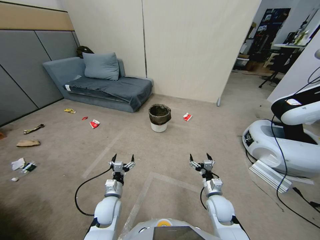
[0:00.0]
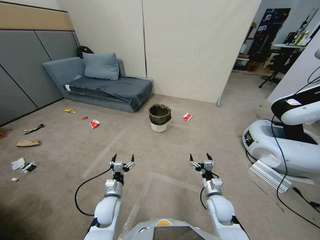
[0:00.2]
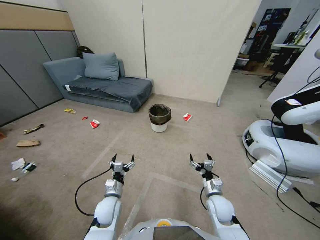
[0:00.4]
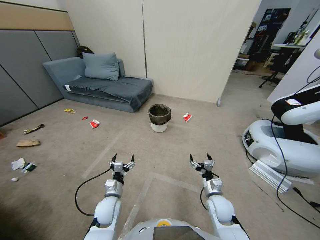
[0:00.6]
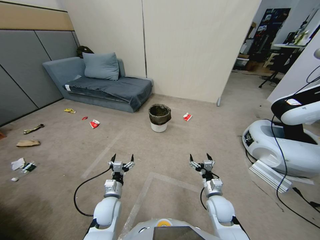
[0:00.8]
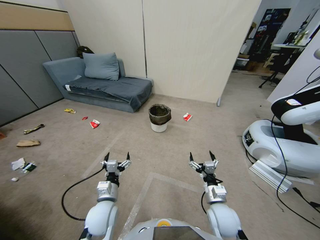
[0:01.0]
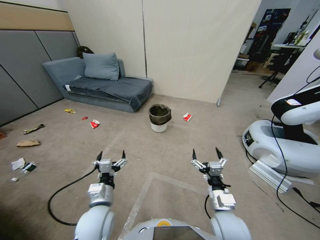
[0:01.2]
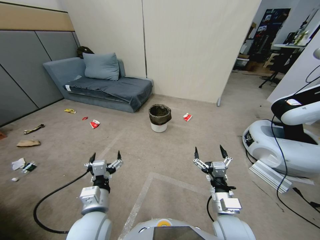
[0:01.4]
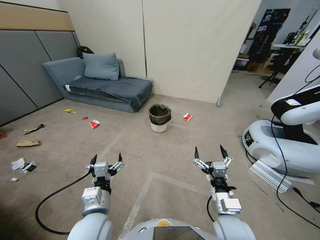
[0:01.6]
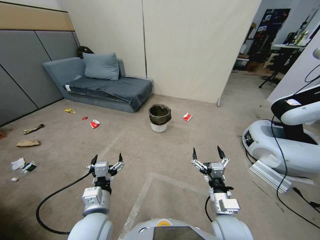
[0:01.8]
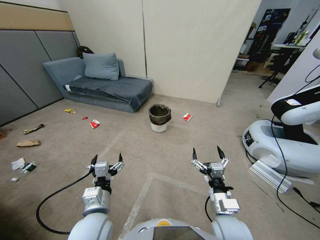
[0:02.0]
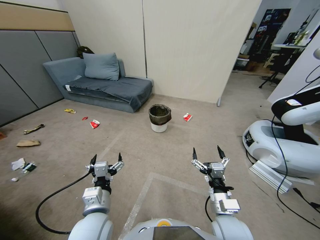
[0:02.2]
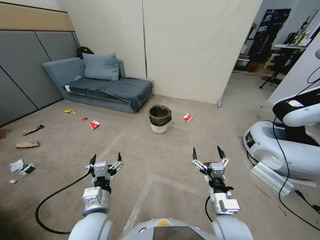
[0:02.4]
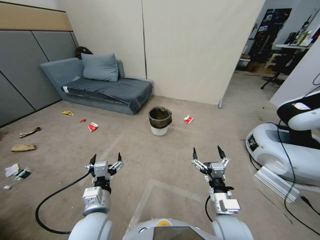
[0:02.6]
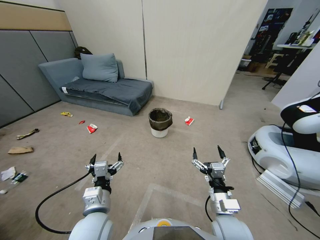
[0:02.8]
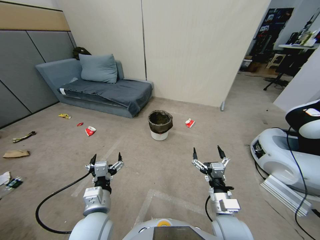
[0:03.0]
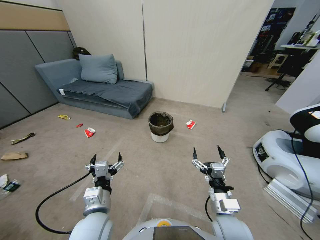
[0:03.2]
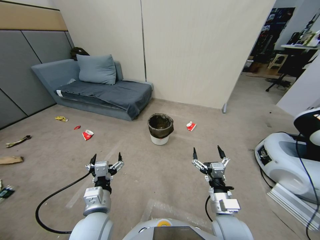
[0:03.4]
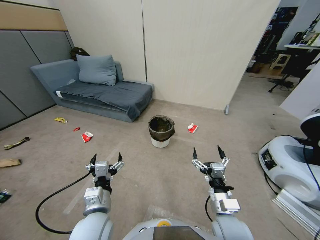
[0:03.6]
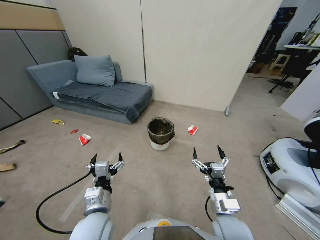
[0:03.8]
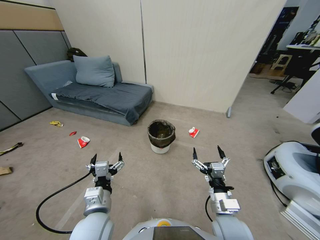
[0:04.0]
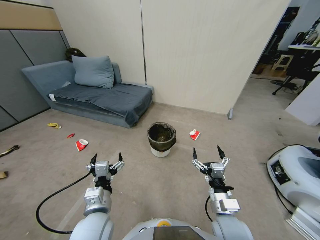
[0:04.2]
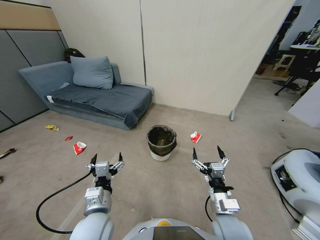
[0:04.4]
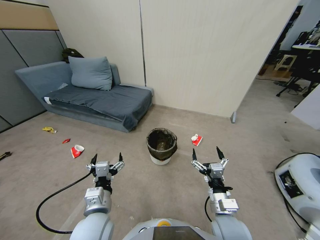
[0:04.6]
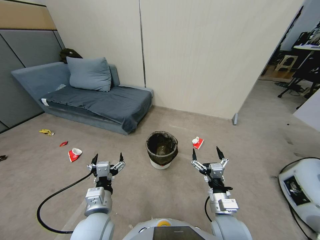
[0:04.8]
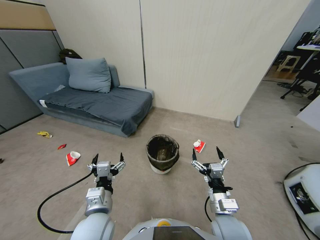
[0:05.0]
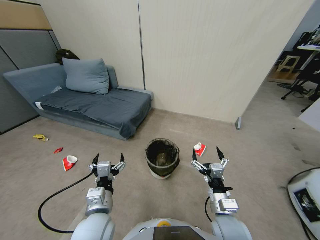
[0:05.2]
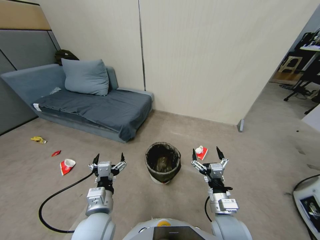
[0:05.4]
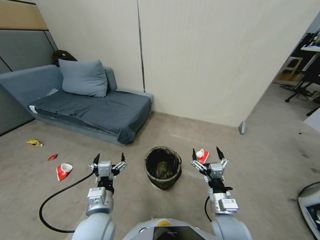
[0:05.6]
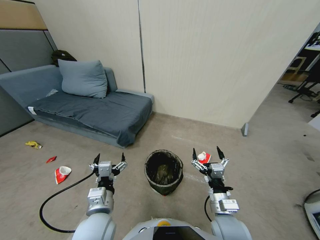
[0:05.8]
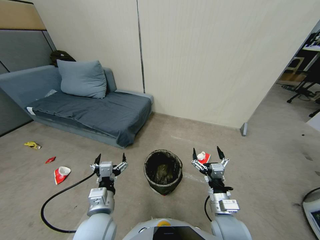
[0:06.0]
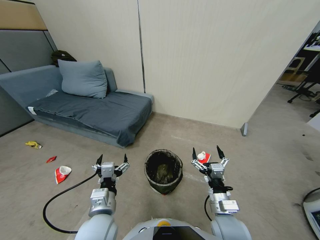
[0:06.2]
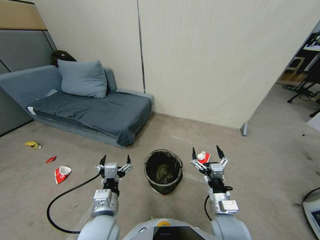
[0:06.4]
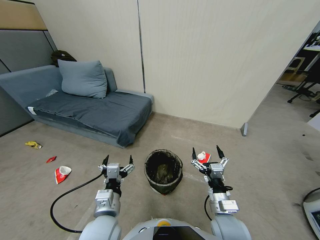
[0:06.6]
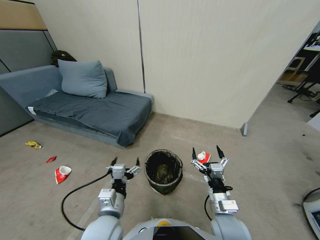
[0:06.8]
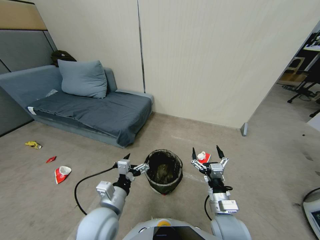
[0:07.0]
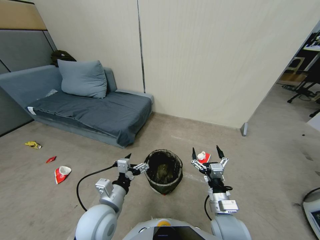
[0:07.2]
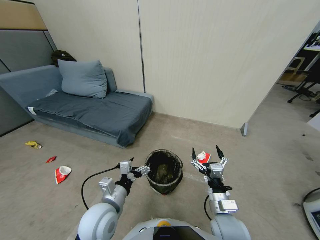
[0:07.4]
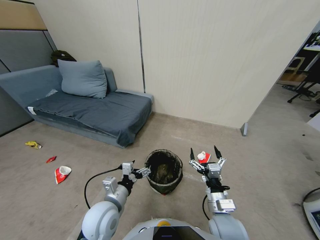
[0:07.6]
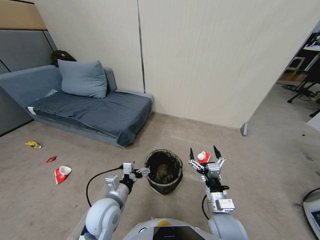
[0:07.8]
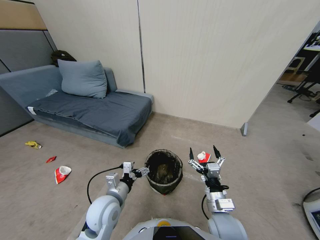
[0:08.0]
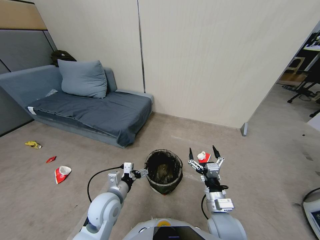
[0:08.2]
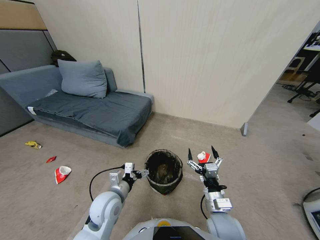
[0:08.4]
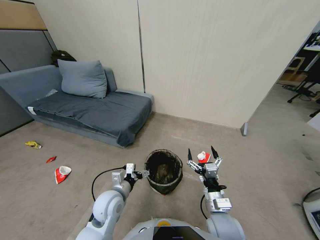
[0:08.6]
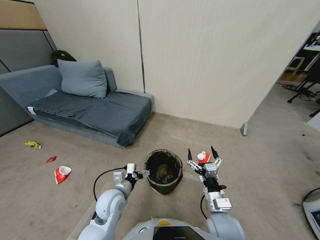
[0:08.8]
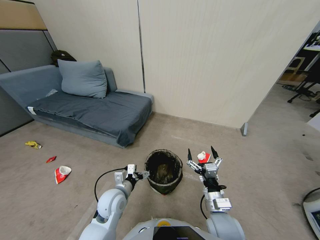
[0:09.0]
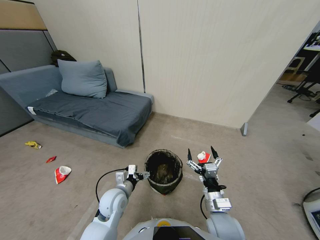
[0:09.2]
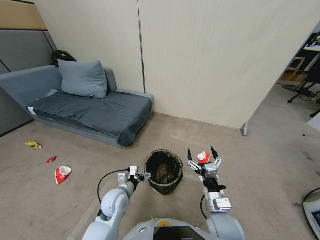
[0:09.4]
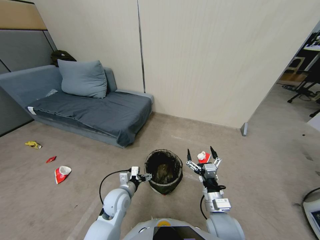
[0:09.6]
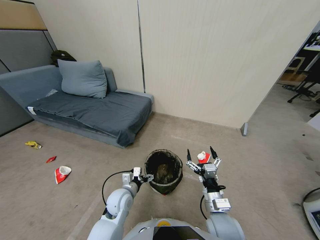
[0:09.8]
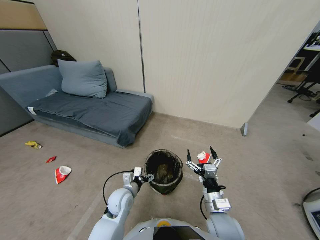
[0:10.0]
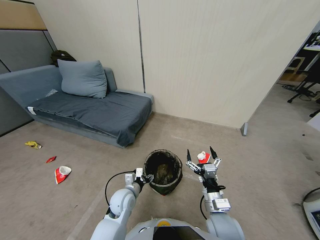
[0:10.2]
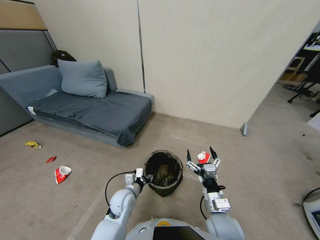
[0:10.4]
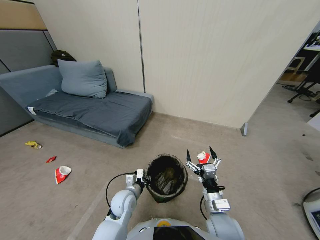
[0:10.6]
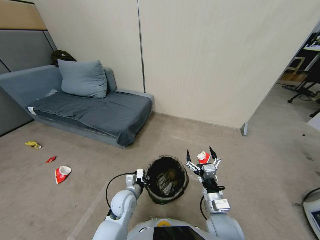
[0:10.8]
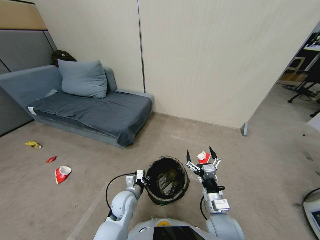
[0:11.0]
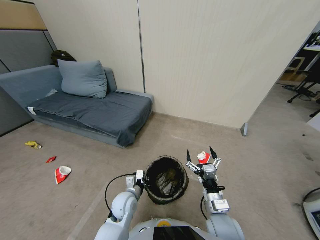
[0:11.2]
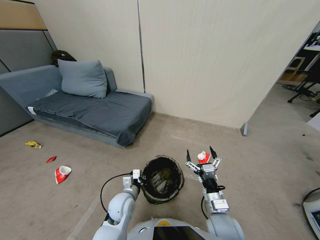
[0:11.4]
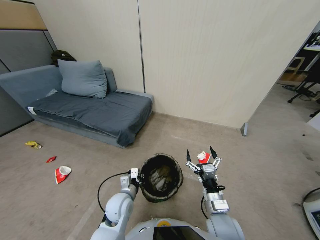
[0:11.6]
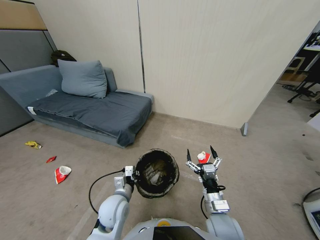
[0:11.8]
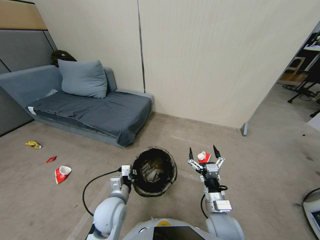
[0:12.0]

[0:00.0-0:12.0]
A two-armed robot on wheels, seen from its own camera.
Task of the whole recording: Pick up the trash bin, then pick up the garbage from the floor and place it into the trash bin.
0:06.0 to 0:07.6: The left gripper moves approximately 5 cm.
0:07.6 to 0:09.0: The left gripper is displaced downward and forward by some 10 cm.
0:09.0 to 0:10.4: The left gripper closes its fingers.
0:10.4 to 0:12.0: The left gripper shifts approximately 10 cm upward and backward.

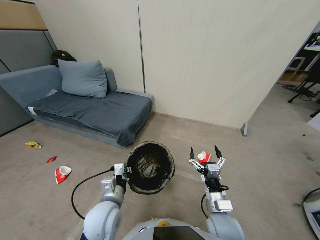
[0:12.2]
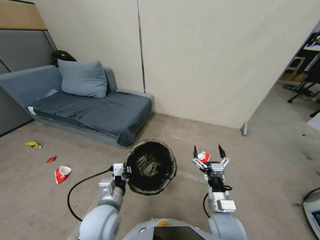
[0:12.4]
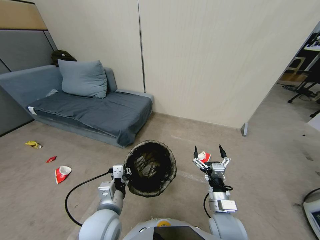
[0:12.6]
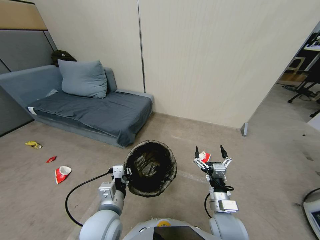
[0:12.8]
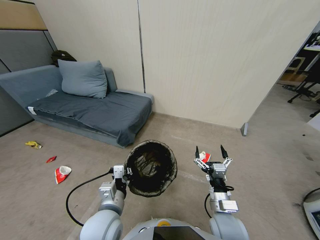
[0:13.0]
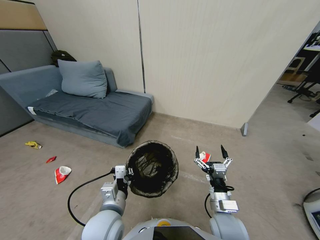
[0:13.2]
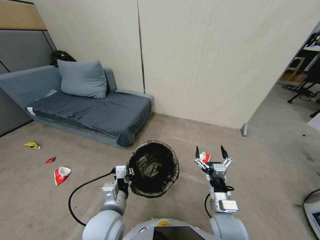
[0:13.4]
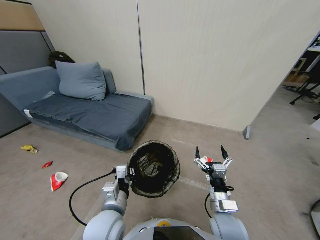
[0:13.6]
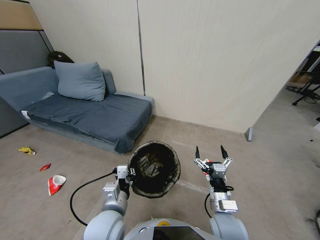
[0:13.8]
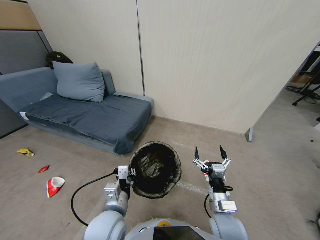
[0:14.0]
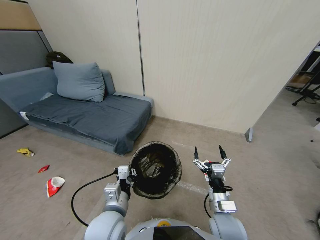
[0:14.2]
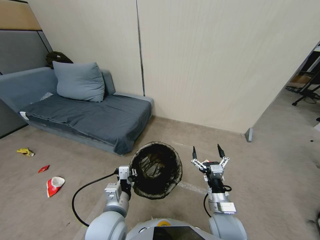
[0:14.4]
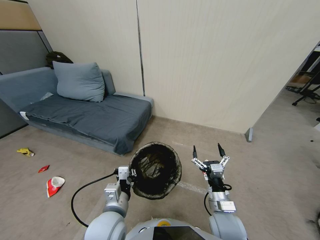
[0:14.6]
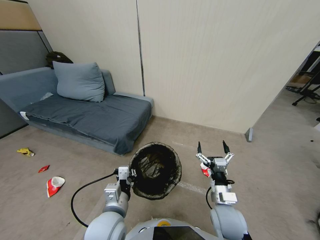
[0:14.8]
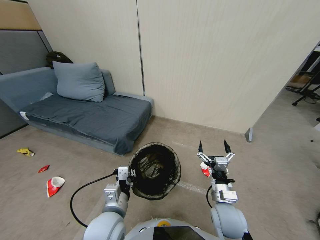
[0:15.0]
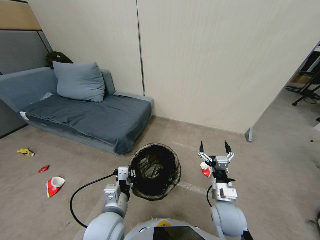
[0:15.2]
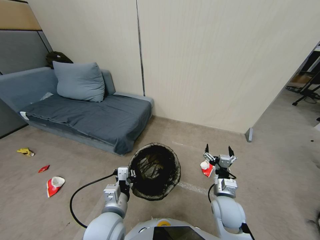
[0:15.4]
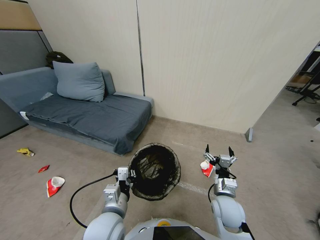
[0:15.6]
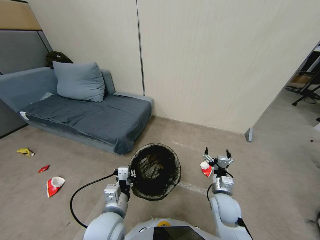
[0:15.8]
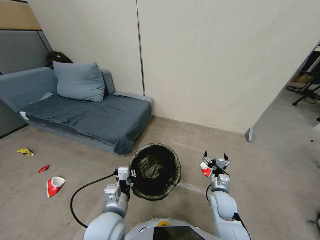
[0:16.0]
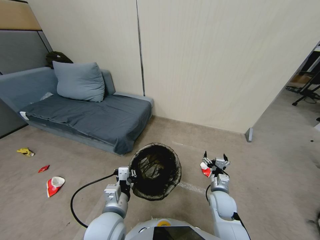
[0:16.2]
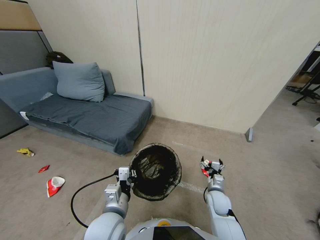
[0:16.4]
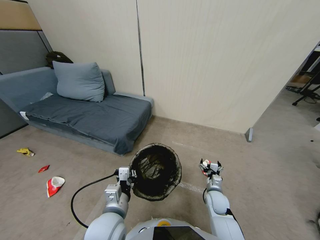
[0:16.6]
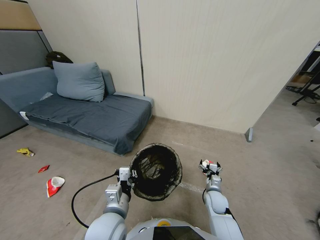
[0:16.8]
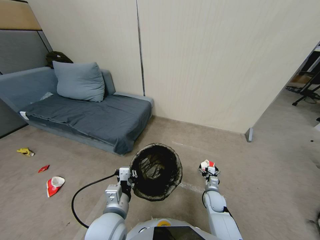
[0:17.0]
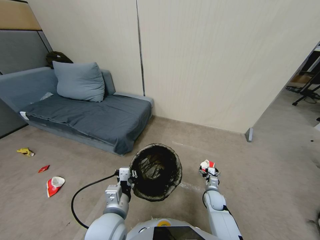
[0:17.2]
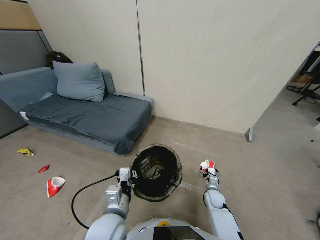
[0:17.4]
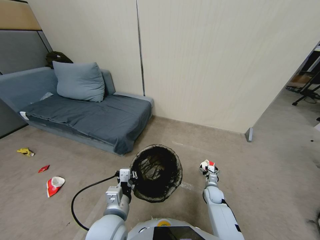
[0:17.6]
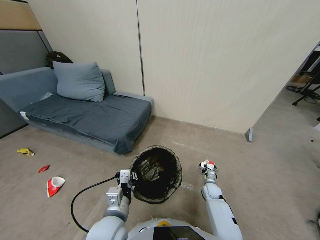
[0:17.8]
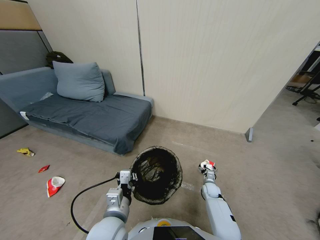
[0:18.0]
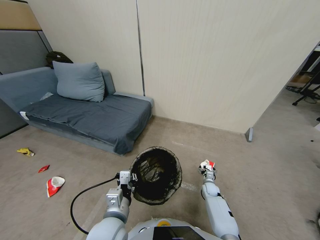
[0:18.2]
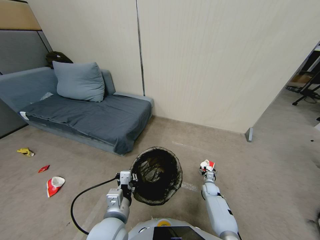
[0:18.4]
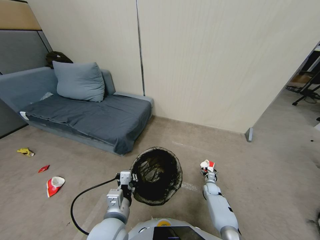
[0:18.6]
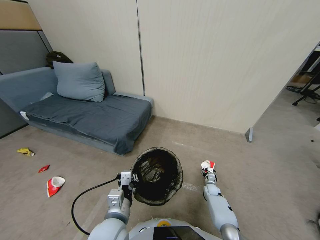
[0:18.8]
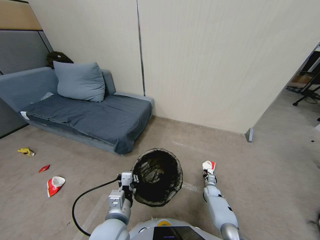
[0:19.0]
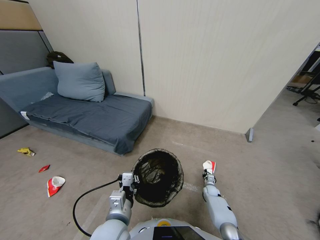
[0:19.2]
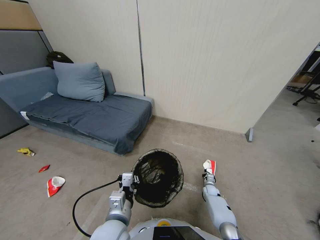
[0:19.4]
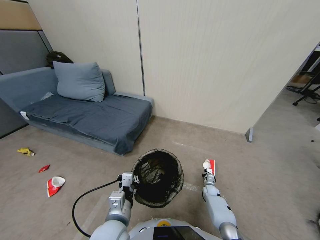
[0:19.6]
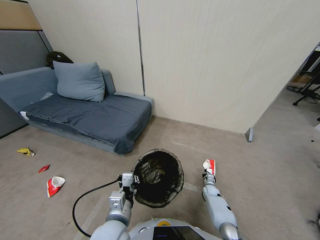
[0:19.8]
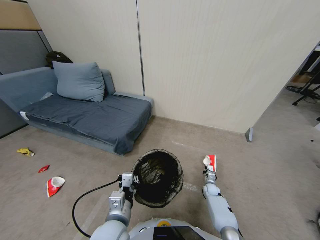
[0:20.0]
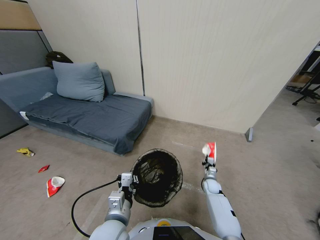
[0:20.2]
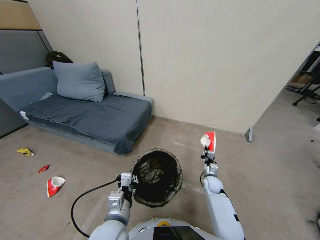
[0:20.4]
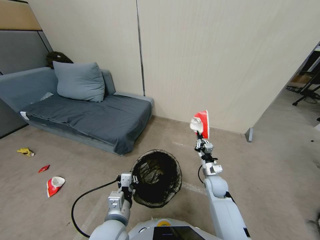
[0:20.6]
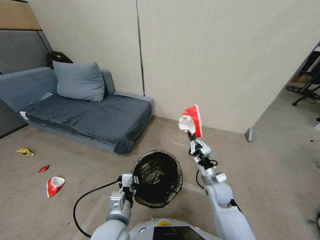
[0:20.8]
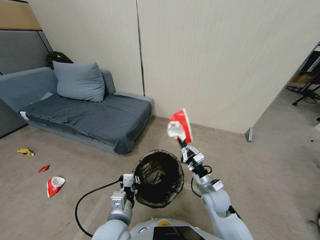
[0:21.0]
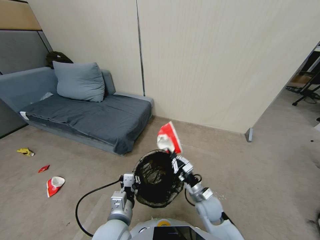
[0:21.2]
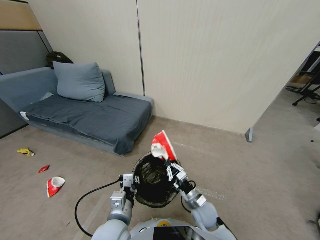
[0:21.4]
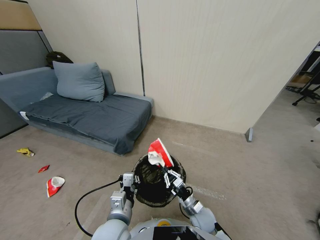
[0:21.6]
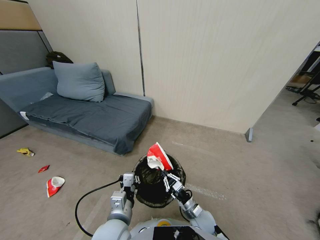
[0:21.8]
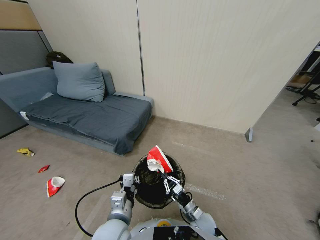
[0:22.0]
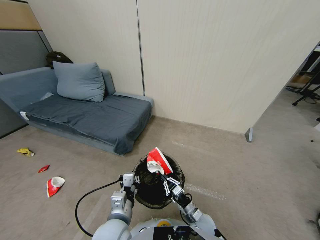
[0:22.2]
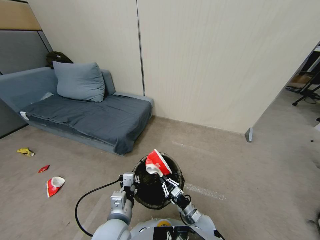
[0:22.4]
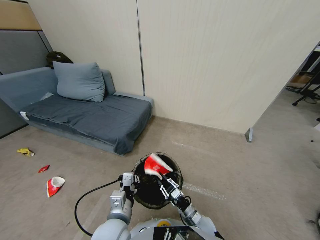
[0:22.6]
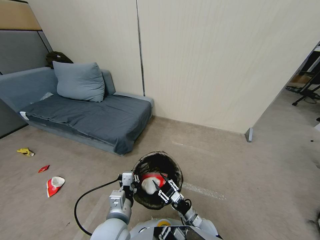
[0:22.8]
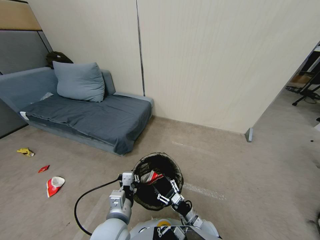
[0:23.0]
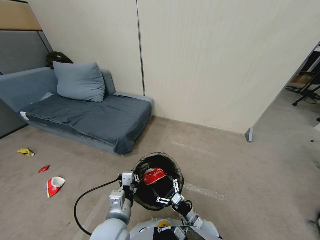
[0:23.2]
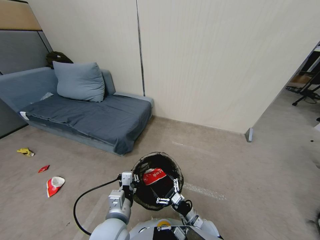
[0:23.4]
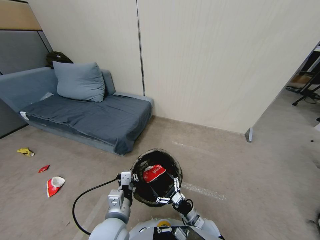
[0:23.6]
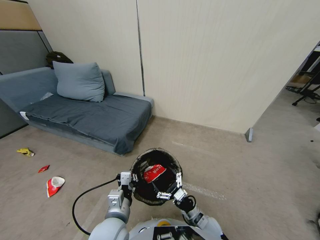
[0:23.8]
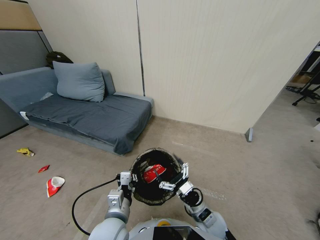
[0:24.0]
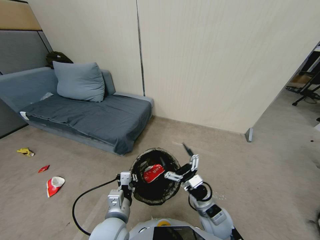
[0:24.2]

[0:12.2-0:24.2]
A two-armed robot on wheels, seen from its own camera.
Task of the whole recording: Pick up the trash bin, then pick up the garbage from the floor and place it into the trash bin.
0:12.2 to 0:15.2: The grippers make only small movements.
0:15.2 to 0:16.6: The right gripper heads downward and forward, covering roughly 15 cm.
0:16.6 to 0:18.2: The right gripper shifts roughly 15 cm downward, forward and to the right.
0:18.2 to 0:19.8: The right gripper closes up.
0:19.8 to 0:21.2: The right gripper heads upward, to the left and backward, covering some 30 cm.
0:21.2 to 0:22.6: The right gripper is displaced downward and backward by about 10 cm, and opens.
0:22.6 to 0:24.2: The right gripper goes roughly 15 cm upward, and opens its fingers.
